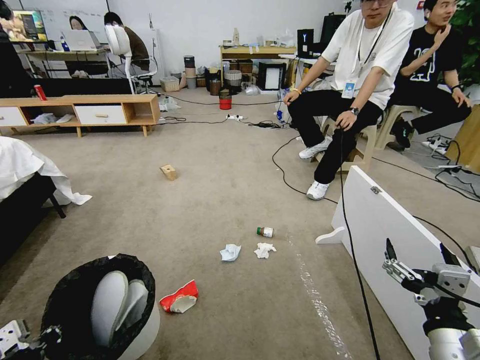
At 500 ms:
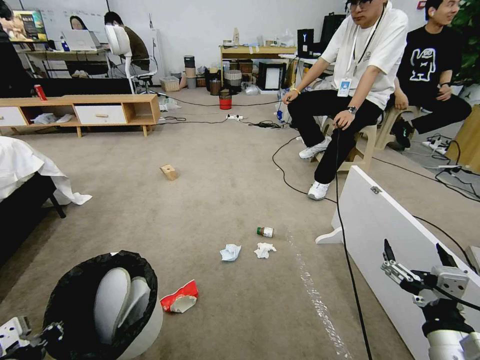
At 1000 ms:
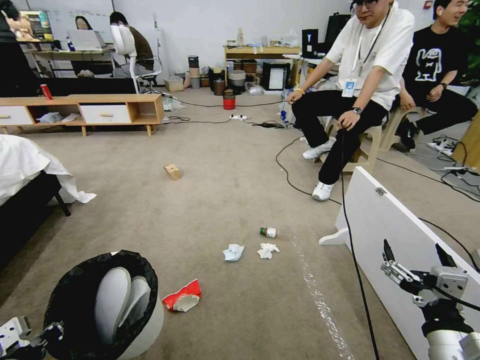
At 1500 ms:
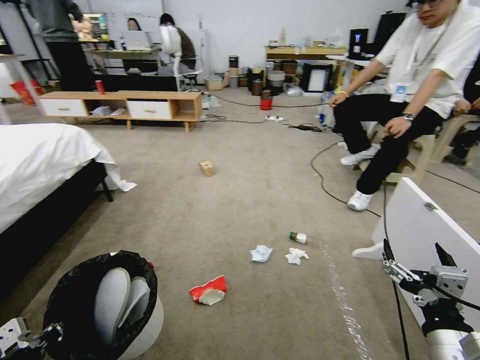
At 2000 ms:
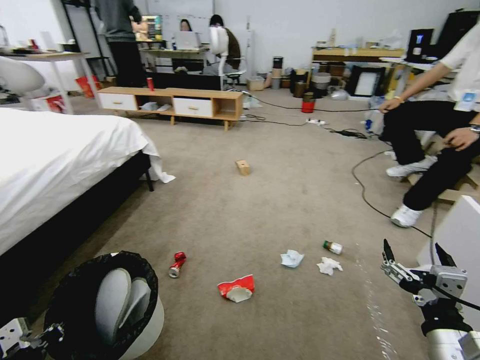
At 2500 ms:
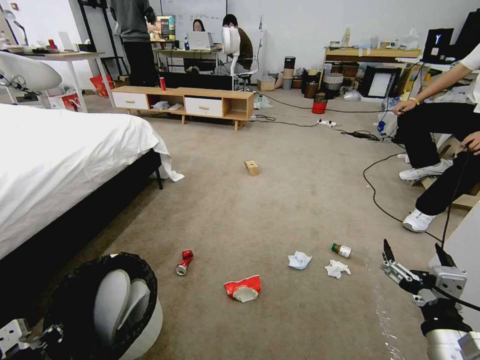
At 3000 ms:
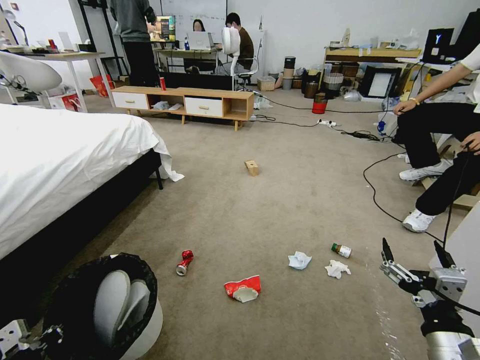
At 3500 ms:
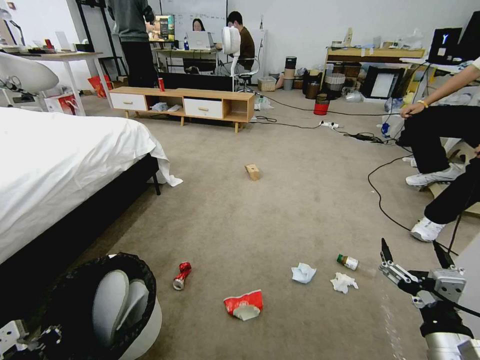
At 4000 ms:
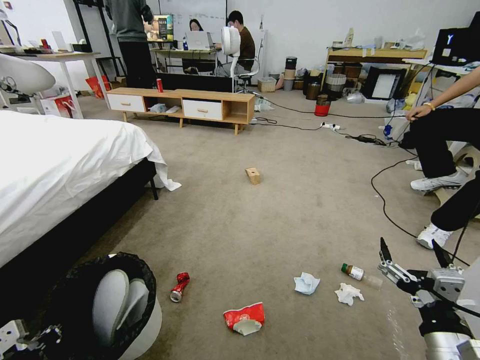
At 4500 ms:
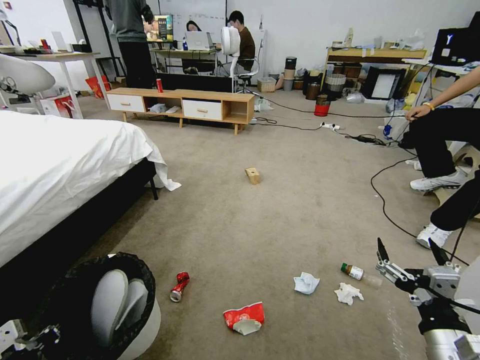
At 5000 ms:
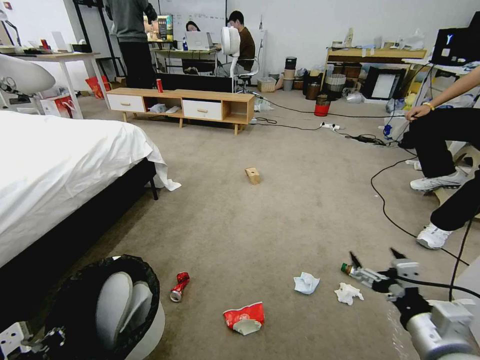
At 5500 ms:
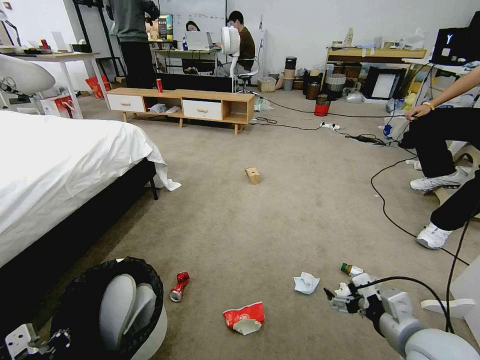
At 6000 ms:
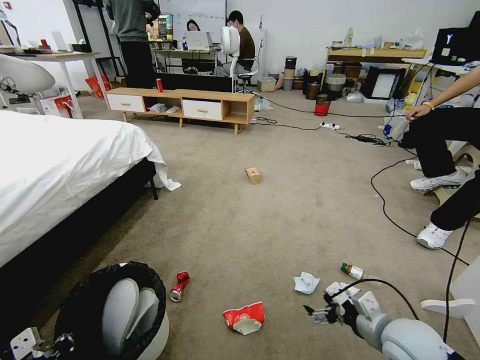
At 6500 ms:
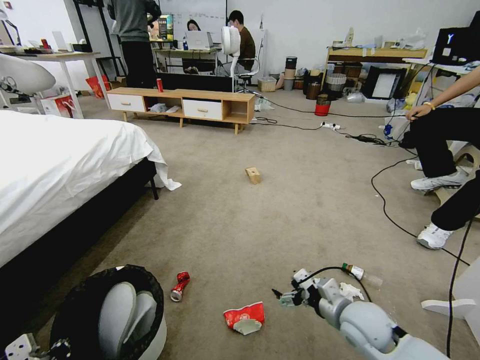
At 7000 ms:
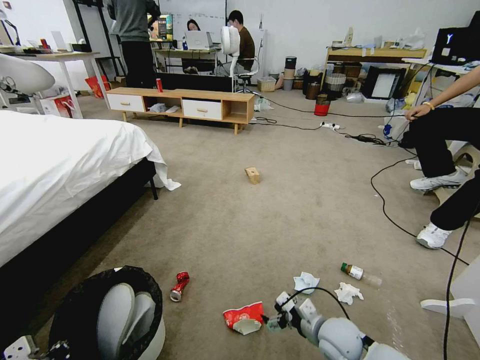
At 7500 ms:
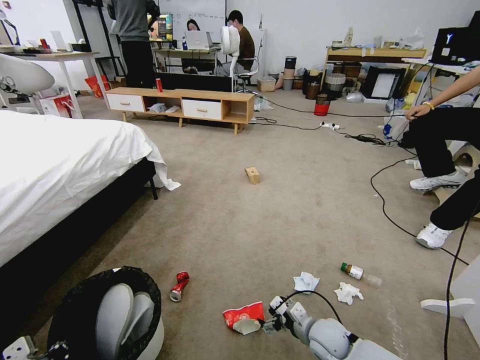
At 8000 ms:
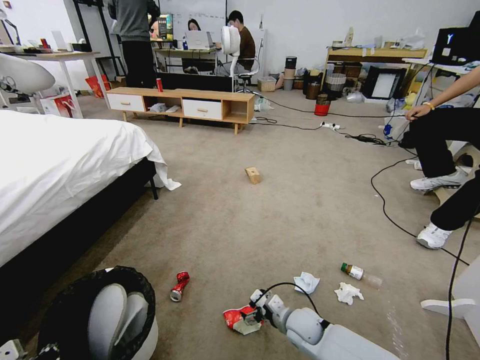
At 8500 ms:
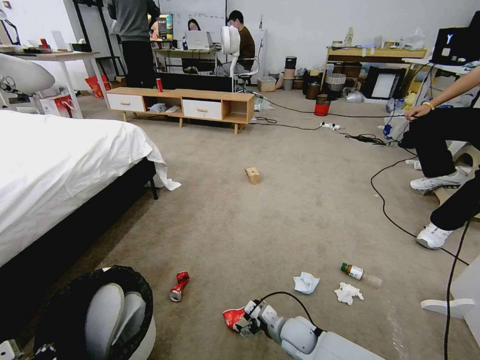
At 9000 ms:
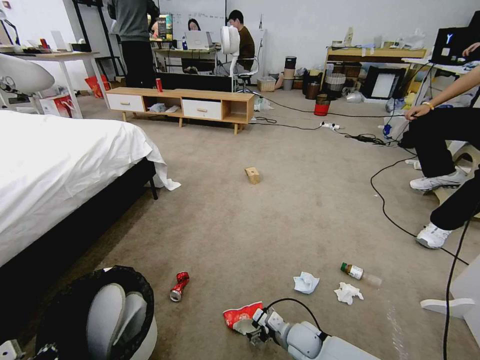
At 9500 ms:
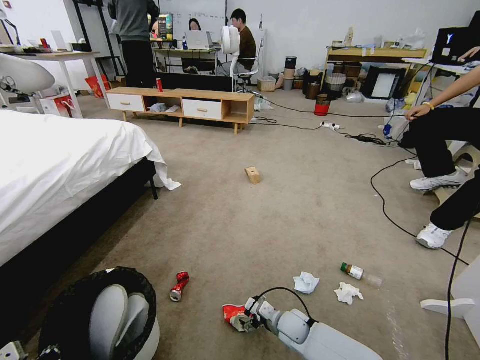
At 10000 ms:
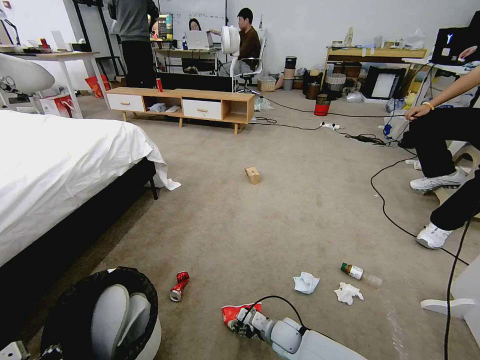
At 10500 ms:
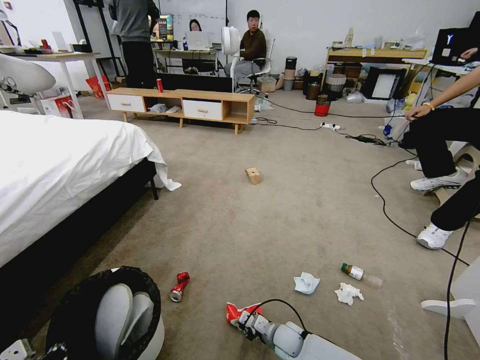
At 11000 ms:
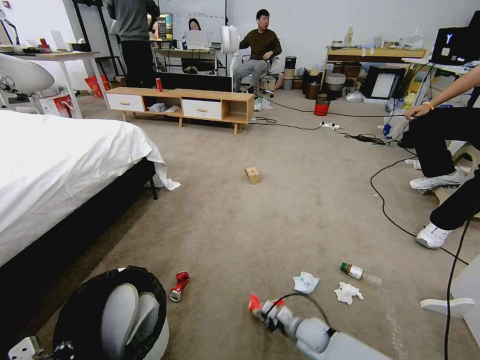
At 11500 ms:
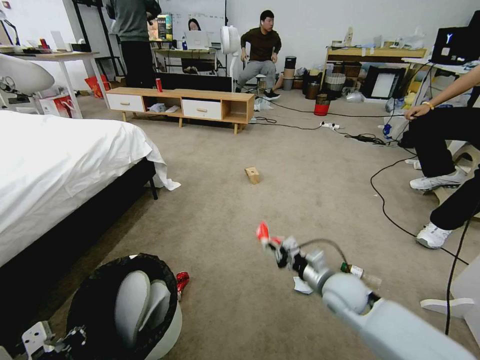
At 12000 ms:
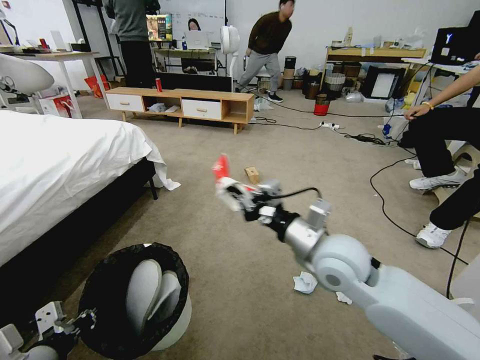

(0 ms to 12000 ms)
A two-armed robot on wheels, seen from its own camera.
Task of the whole recording: Pick up the trash bin and place the garbage on the floor into it.
4000 ms - 6000 ms: The right gripper heads forward, covering approximately 10 cm.
6000 ms - 8000 ms: The right gripper travels downward, to the left and forward by roughly 25 cm.
8000 ms - 10000 ms: The right gripper travels downward by some 5 cm, and closes its fingers.
10000 ms - 12000 ms: The left gripper moves roughly 5 cm, while the right gripper shifts roughly 40 cm upward, and closes its fingers.

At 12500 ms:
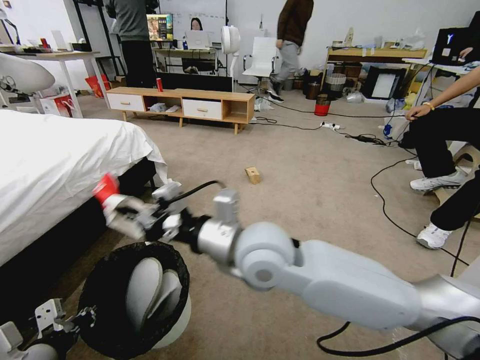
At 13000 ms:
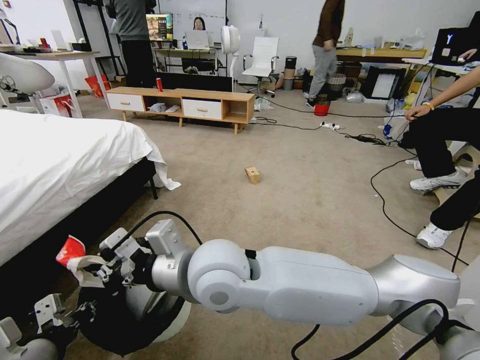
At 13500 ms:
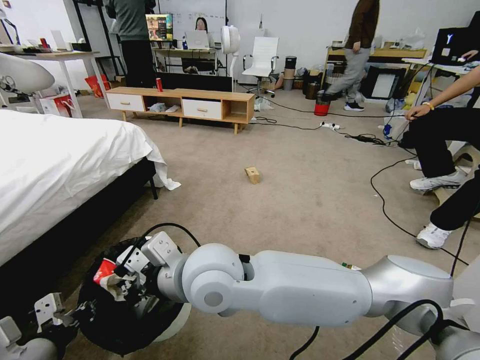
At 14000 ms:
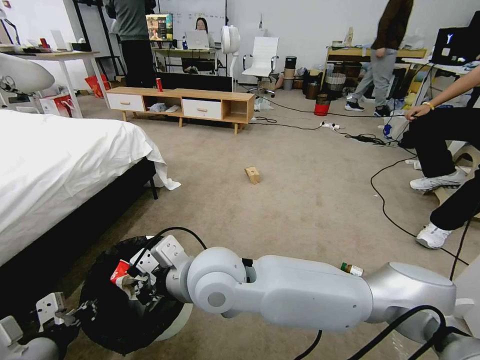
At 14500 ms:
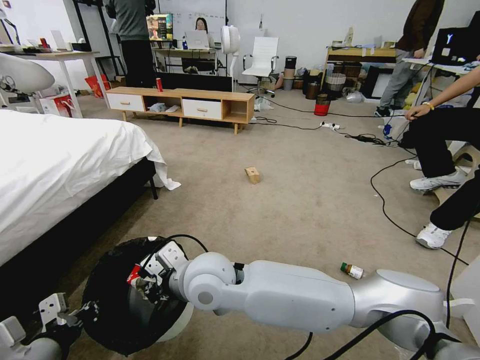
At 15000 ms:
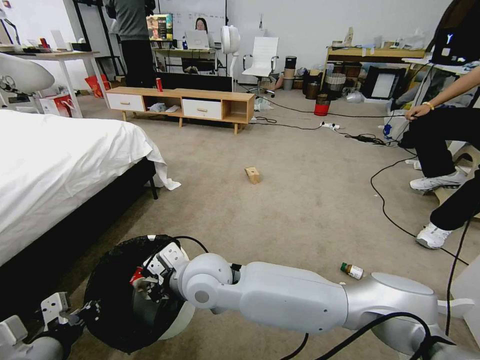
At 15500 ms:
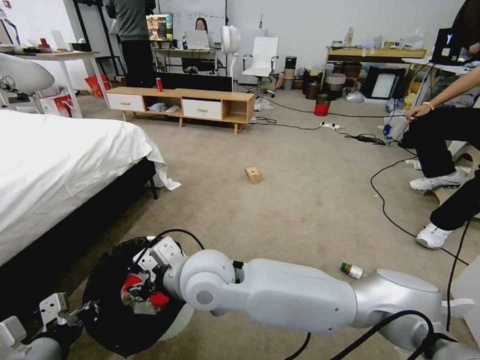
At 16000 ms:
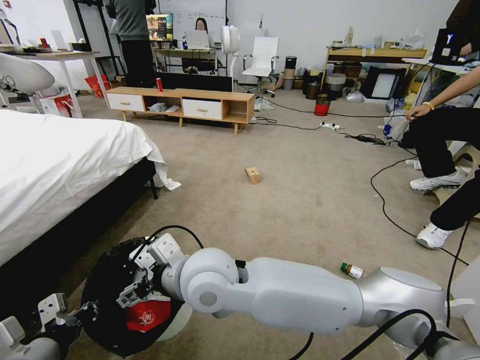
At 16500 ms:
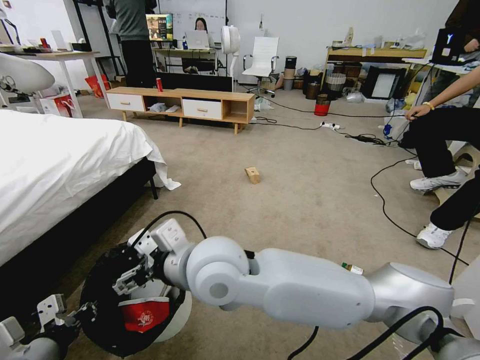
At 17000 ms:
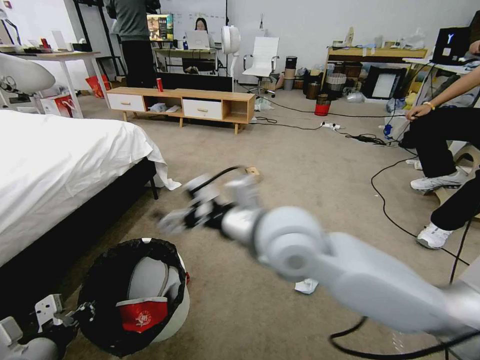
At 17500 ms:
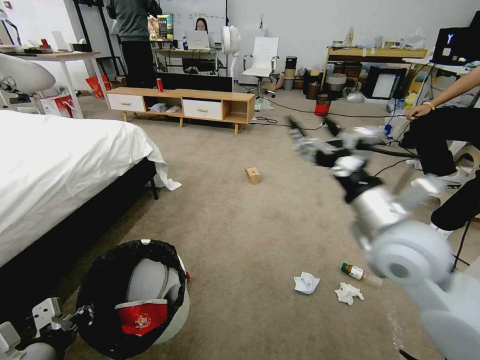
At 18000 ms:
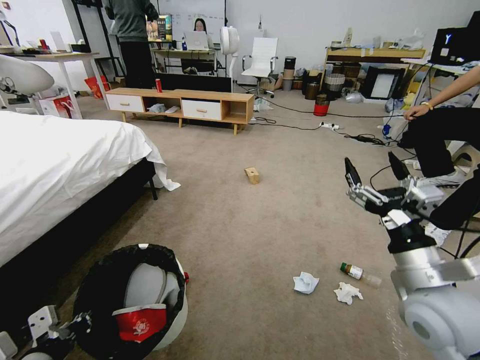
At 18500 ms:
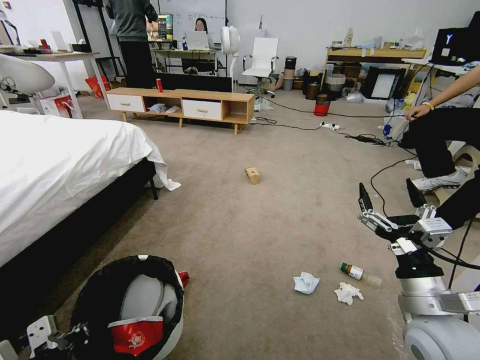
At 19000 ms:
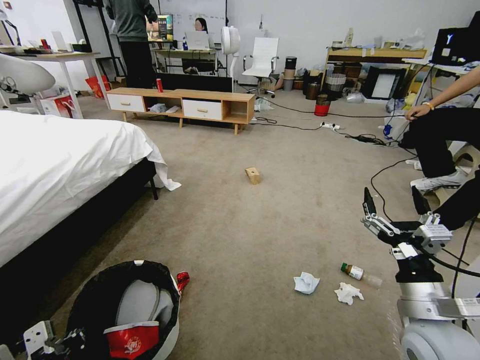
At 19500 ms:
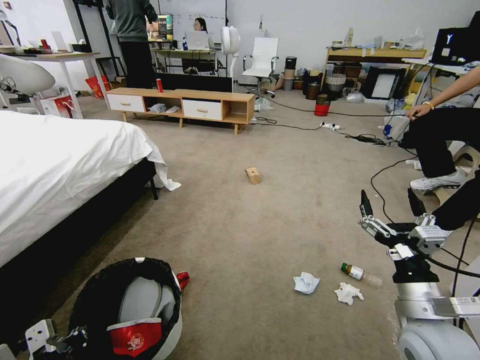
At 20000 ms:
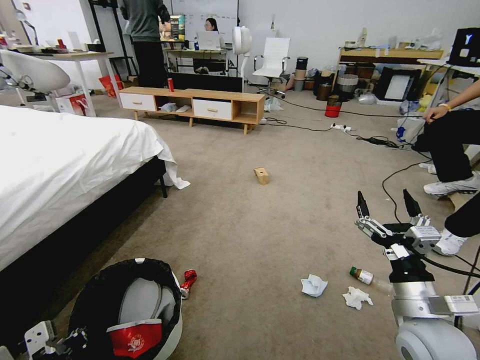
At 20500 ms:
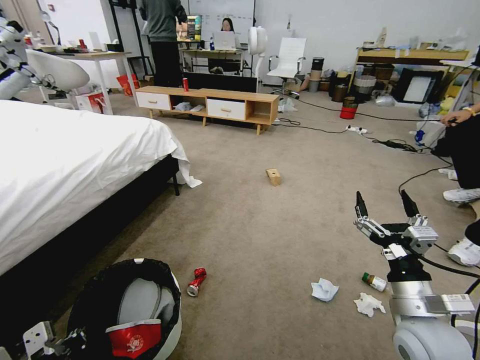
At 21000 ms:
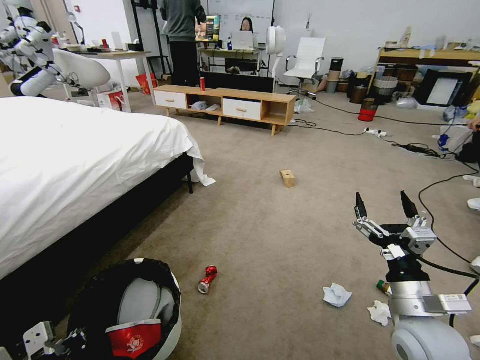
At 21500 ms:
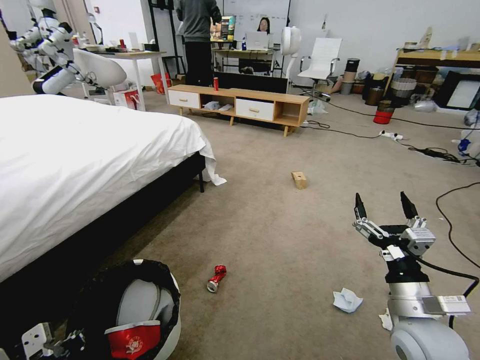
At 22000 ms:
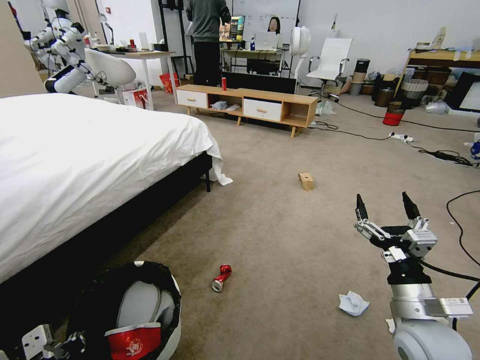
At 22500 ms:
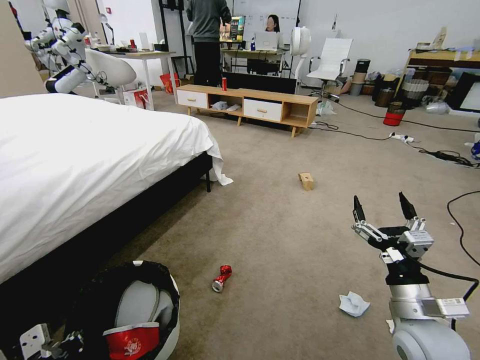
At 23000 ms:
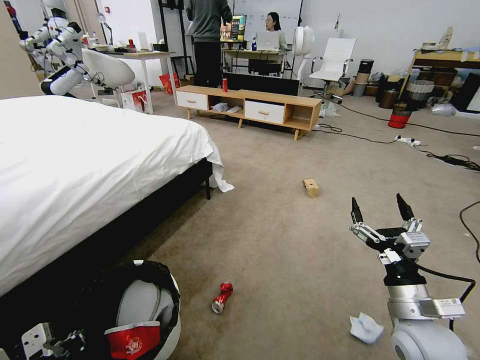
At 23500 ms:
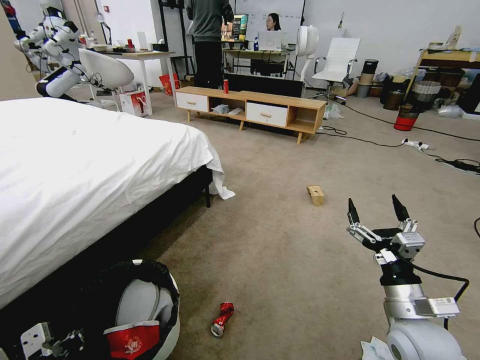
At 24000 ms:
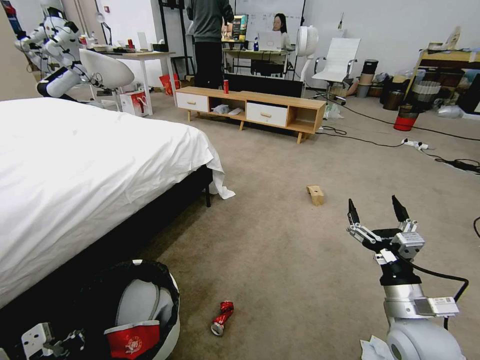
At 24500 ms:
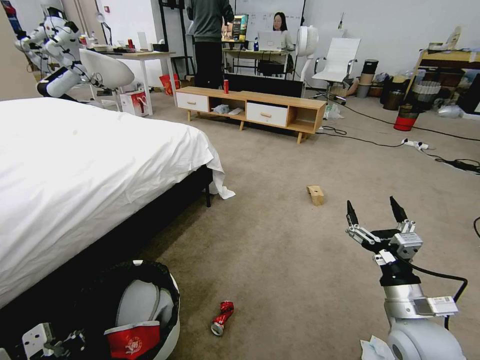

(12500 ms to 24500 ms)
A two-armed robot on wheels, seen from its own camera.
Task of the whole recording: Pick up the trash bin and place the garbage on the floor into it.
12500 ms - 14500 ms: The right gripper travels to the left and downward by about 10 cm.
14500 ms - 16500 ms: The right gripper moves upward, some 10 cm, and opens.
16500 ms - 18500 ms: The right gripper heads to the right, covering some 35 cm.

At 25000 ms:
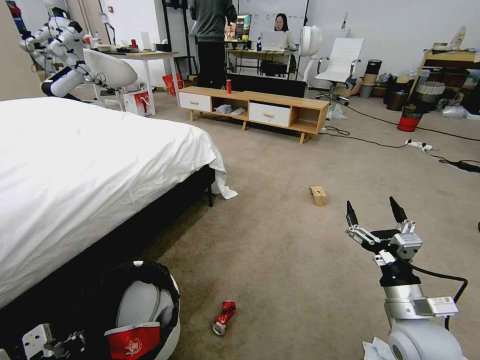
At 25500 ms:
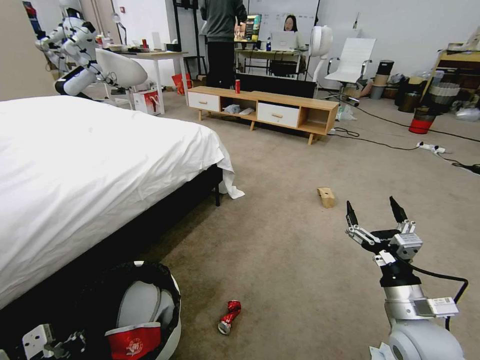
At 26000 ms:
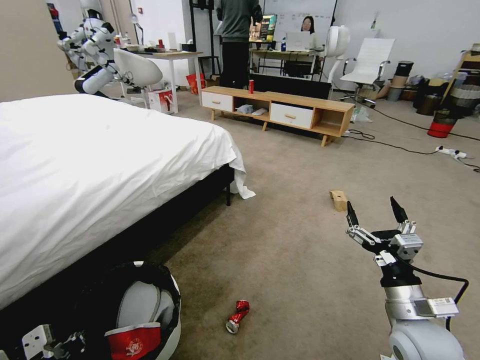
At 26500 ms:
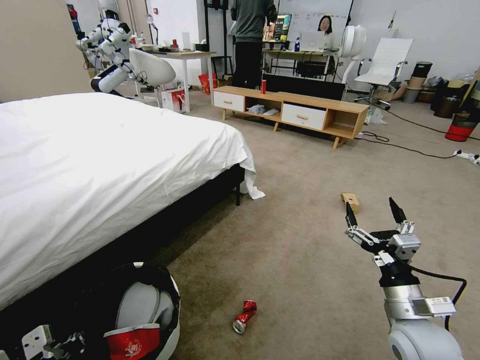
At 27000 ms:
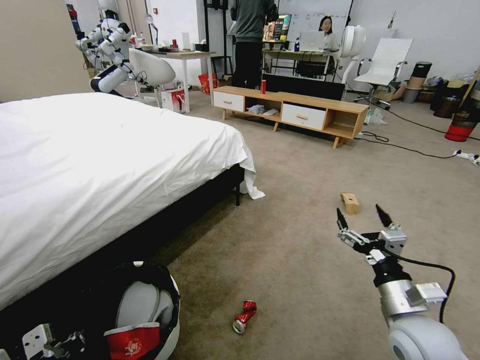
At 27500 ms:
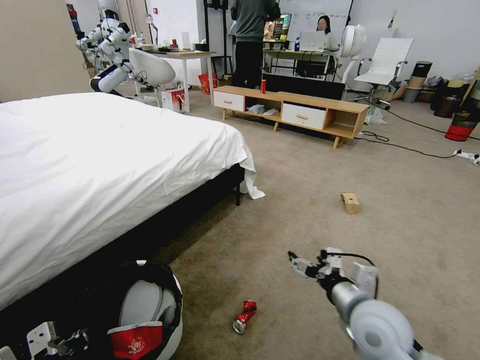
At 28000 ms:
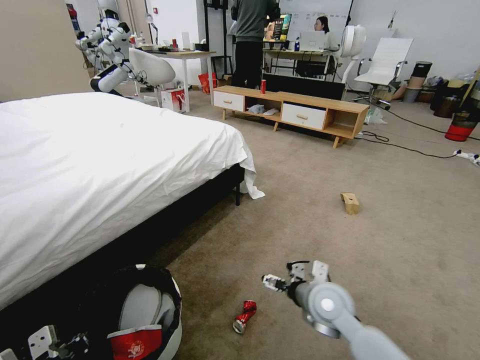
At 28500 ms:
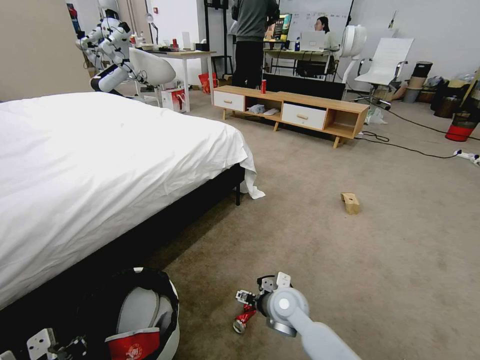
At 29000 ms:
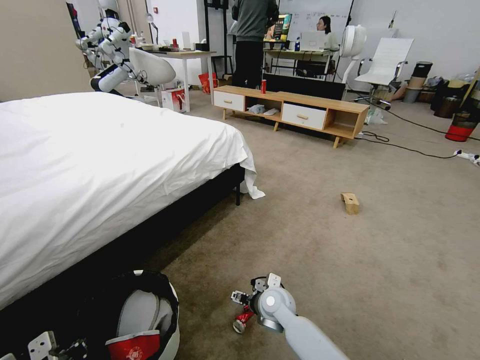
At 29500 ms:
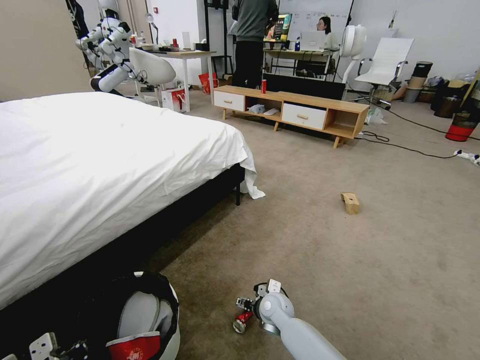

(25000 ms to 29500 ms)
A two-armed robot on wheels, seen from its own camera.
Task of the whole recording: Pick up the trash bin and place the garbage on the floor into it.
27000 ms - 29500 ms: The right gripper heads to the left, downward and forward, covering approximately 35 cm.
